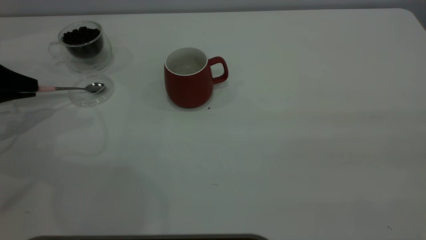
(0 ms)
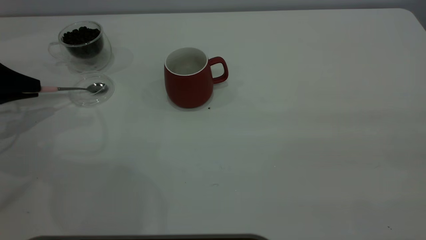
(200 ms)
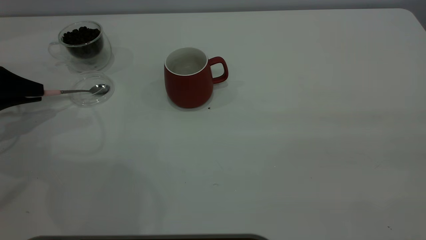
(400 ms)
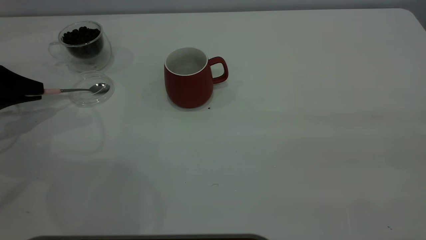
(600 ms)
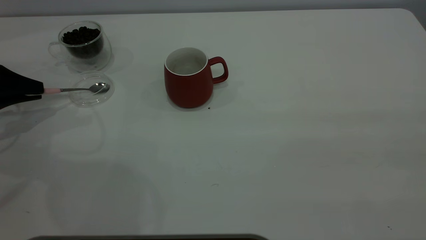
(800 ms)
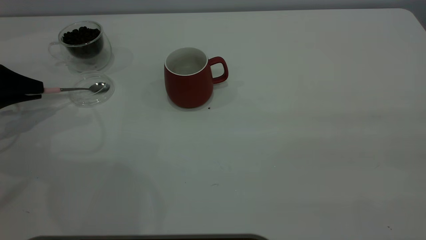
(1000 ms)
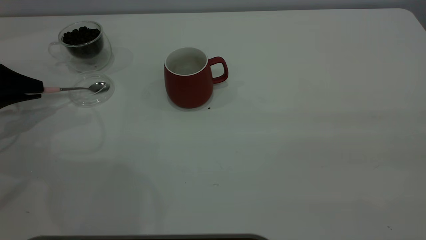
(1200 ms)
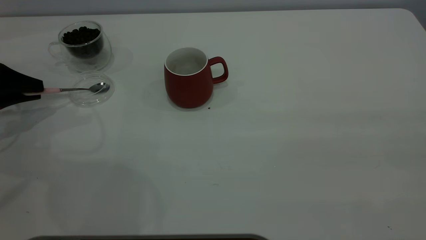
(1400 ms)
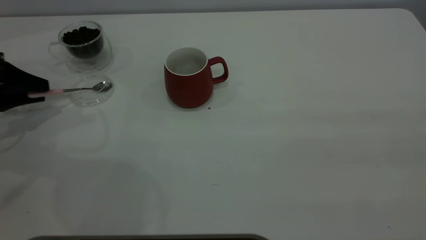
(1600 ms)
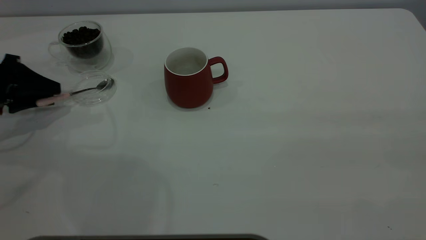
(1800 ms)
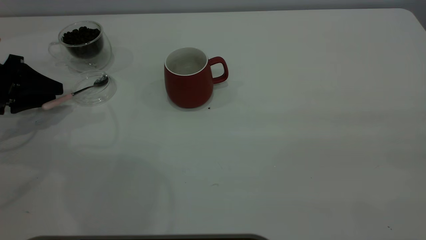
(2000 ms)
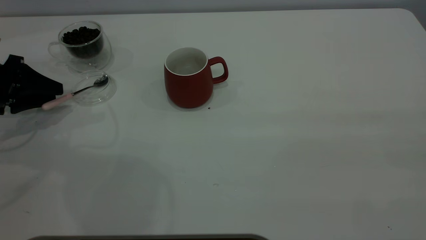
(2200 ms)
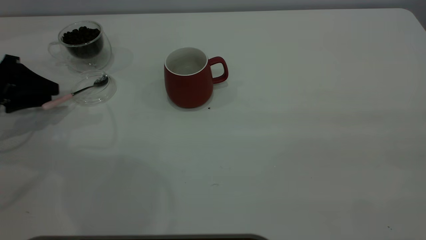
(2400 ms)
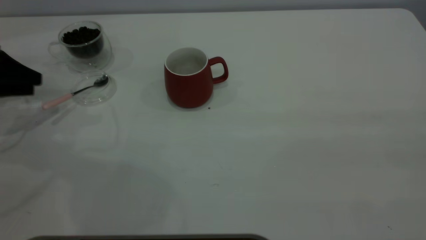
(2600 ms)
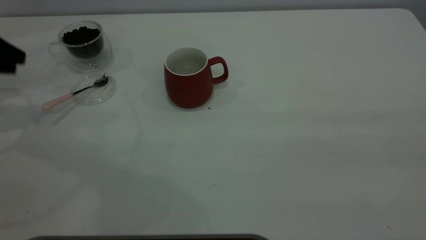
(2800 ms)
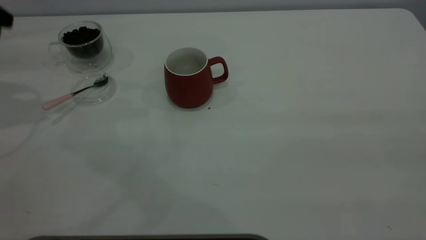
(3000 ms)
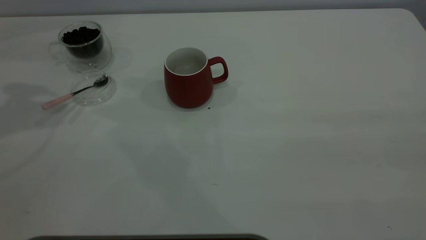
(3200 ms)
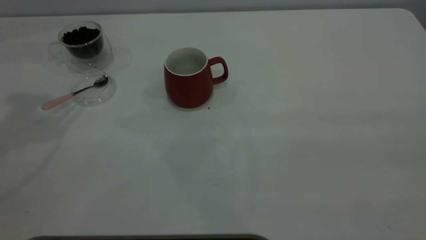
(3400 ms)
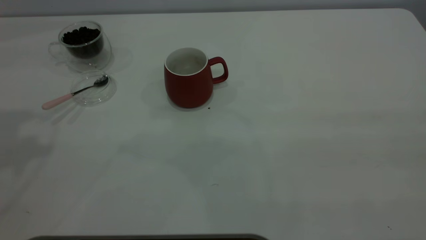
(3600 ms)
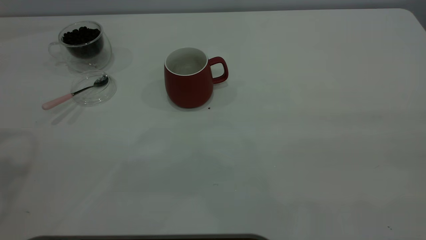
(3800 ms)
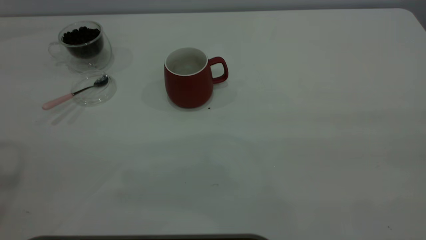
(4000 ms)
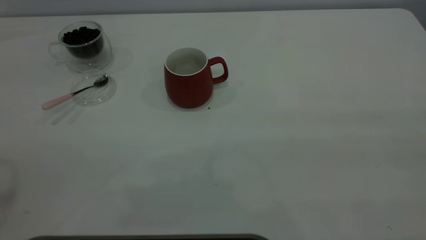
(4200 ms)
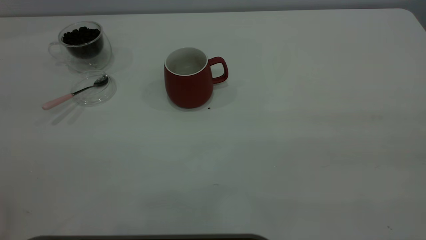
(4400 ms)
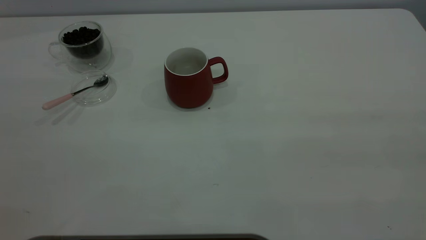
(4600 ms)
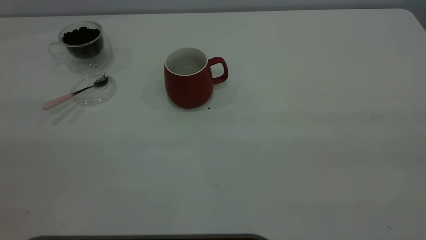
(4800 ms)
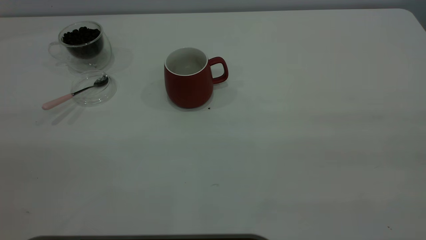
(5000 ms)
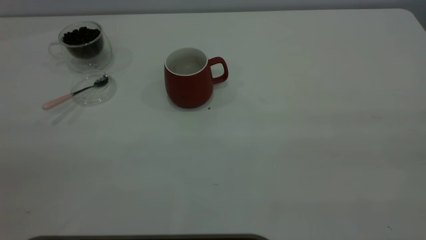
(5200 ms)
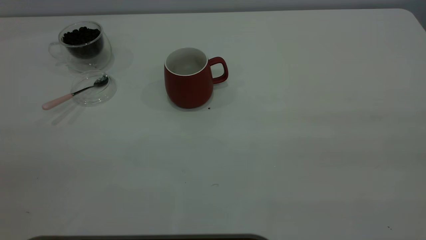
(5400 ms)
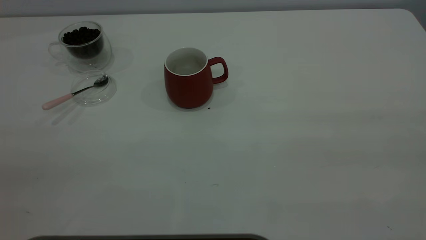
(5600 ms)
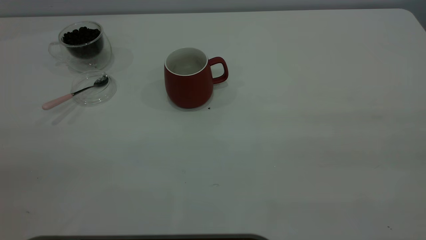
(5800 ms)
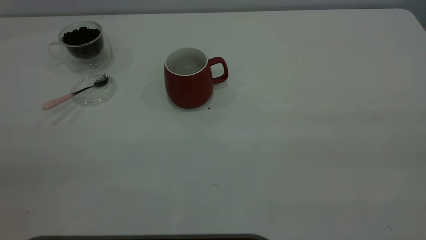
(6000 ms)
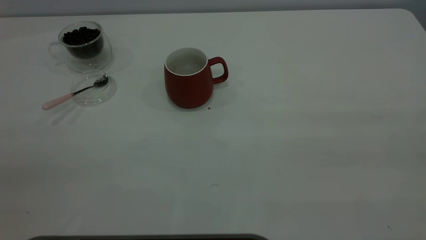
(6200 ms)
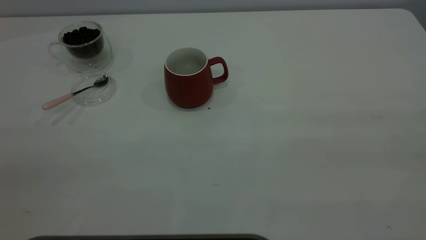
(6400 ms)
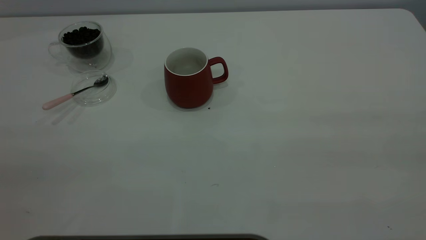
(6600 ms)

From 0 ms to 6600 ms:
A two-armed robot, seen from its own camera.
Task of the whole recording: the right gripper place the red cup in the center of the table, the left gripper take the pink spoon from the cup lid and scoop out the coffee beans from the coffee cup and put them into the red cup, the left gripper put the spoon back into the cup lid.
Step, from 0 ms to 2600 ms: Place the spoon back in its original place.
From 0 ms to 1600 ms: The left gripper opens up.
From 1600 ms to 3200 ms: The left gripper goes about 25 cm upward.
